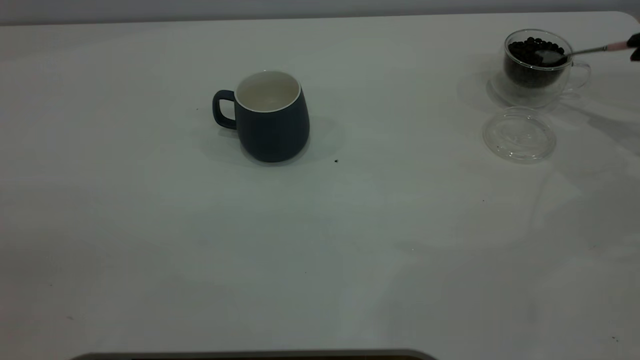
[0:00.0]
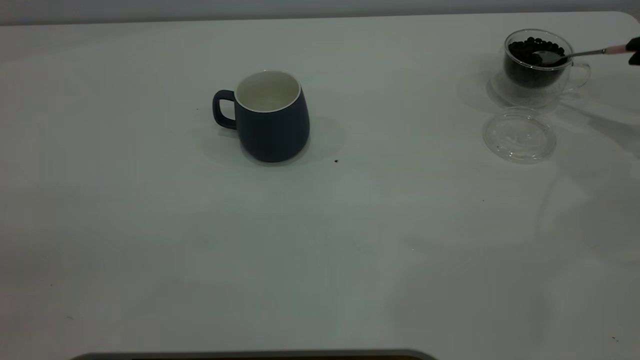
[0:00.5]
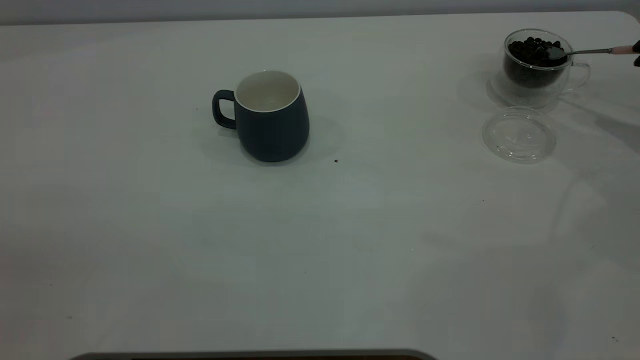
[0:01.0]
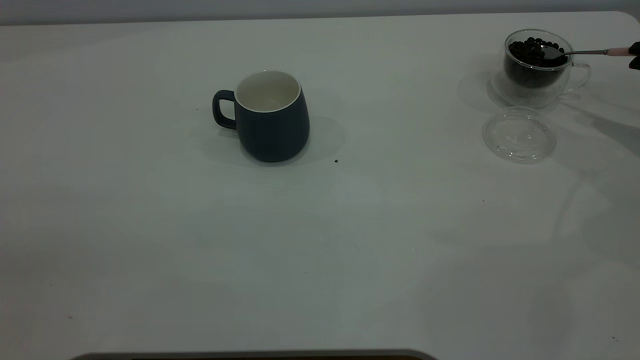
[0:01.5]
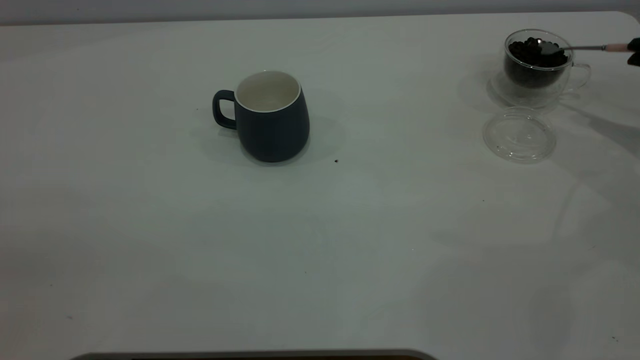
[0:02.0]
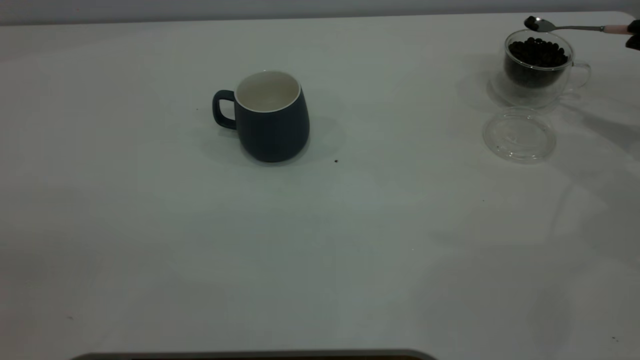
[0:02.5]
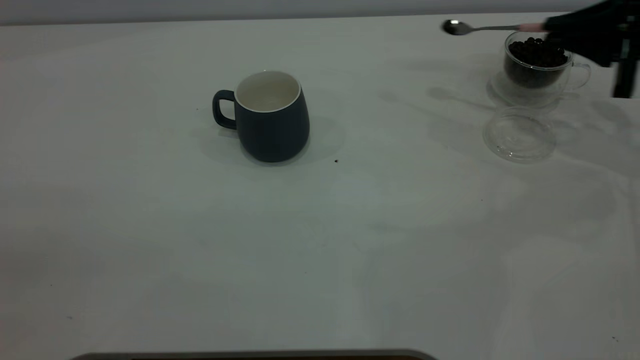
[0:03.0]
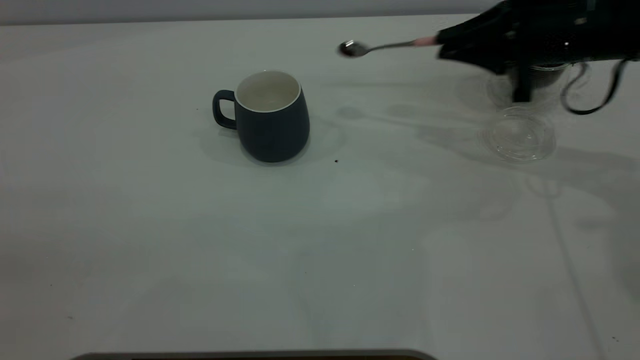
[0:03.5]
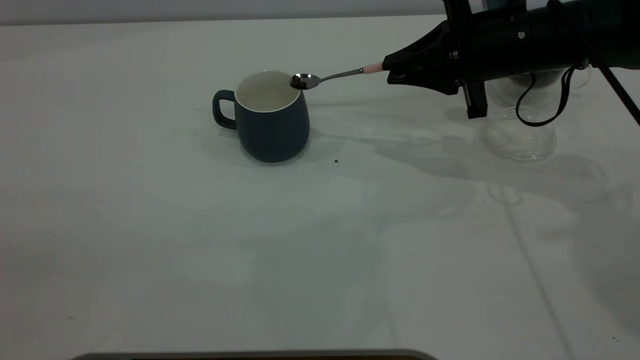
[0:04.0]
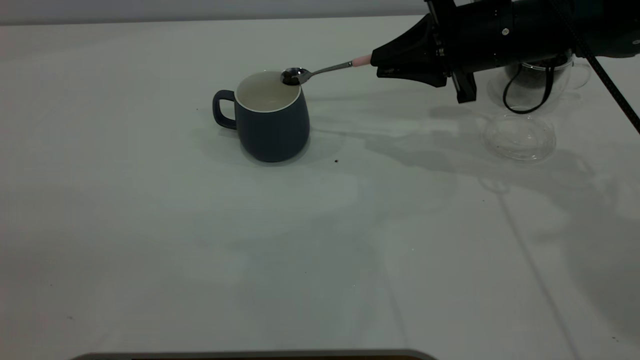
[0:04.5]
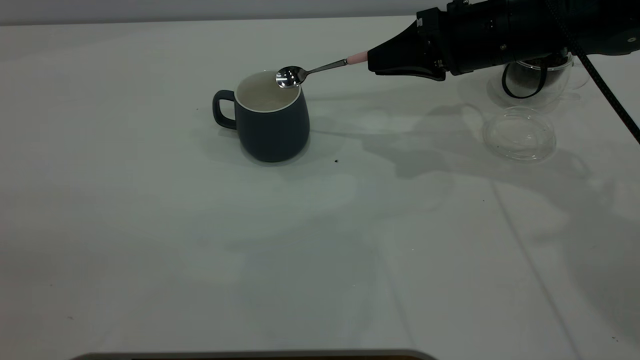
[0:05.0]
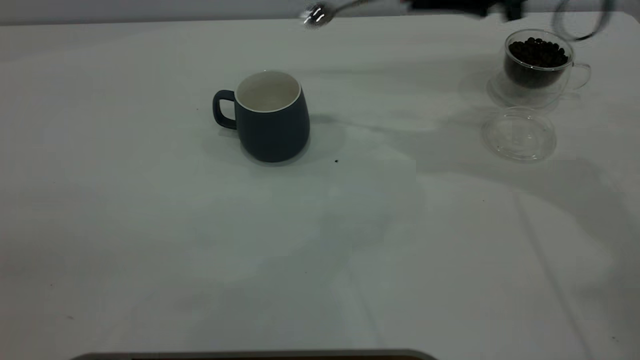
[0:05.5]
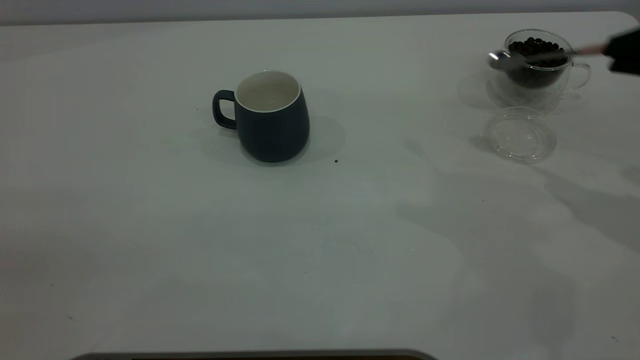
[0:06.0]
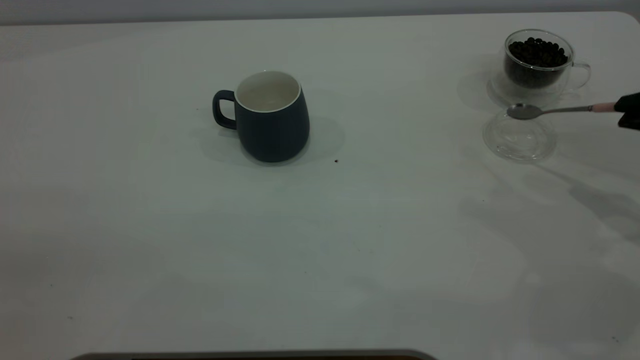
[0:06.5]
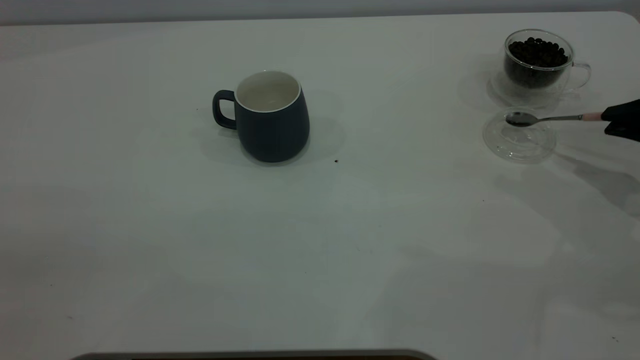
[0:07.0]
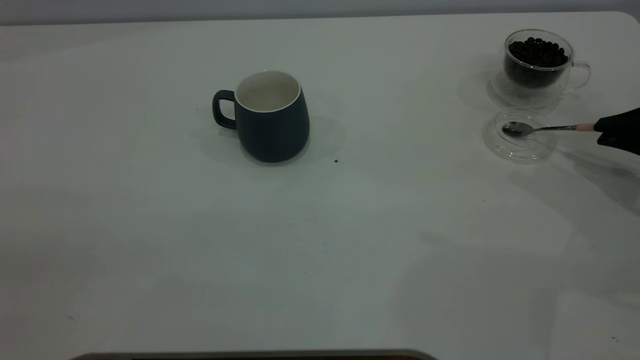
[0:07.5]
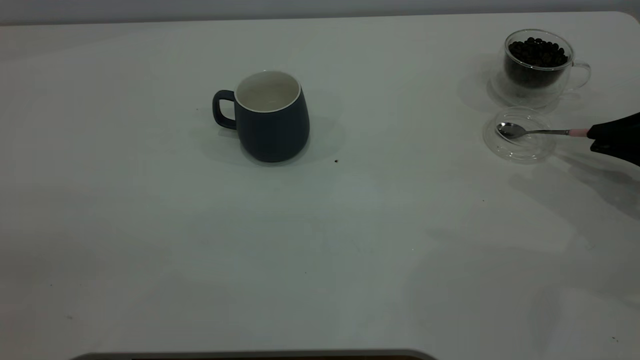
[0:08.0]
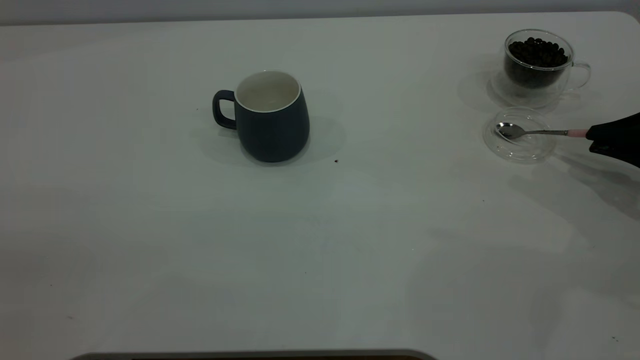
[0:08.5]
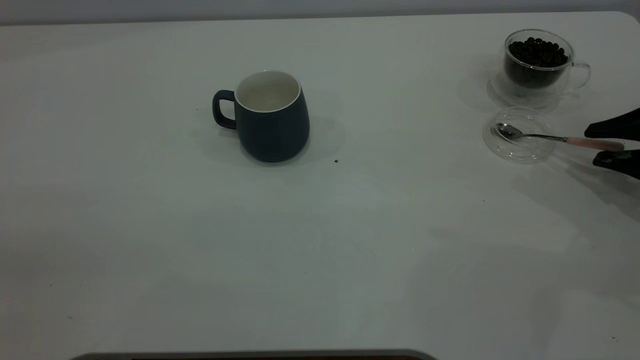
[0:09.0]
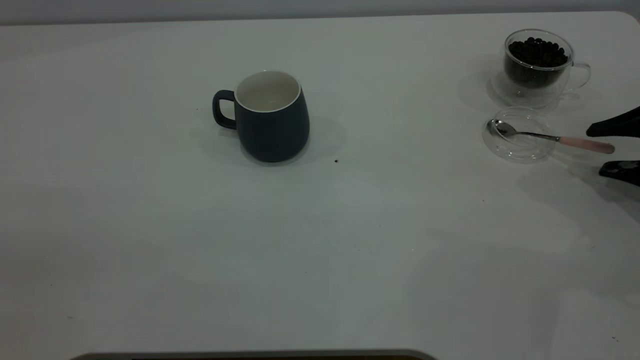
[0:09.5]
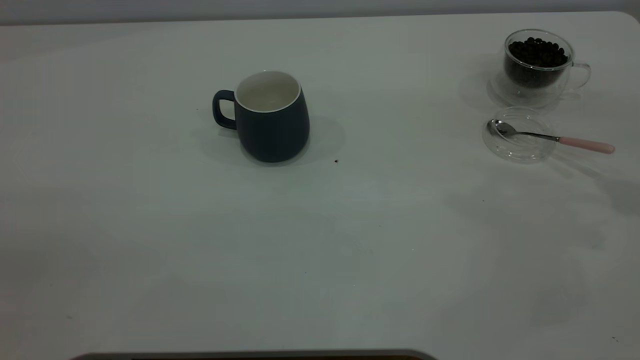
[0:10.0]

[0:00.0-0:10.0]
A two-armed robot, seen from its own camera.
Task of the whole recording: the left gripper place the grey cup in the center of the table, the right gripper take the pink spoon from the cup lid and scoop out the coffee beans from the coffee cup and put them into the grey cup, the right gripper put the spoon back into the cup lid.
Step, 0:00.0 to 0:05.0: Scoop a spoonful of beans into the cup.
Step, 0:05.5 to 0:09.5: Place the spoon back in its original place.
0:02.0 to 0:04.0: The right gripper is displaced to the left by roughly 25 cm.
0:04.0 to 0:06.0: The right gripper heads to the right, backward and upward, covering approximately 20 cm.
0:06.0 to 0:08.0: The right gripper shifts approximately 15 cm downward.
0:08.0 to 0:10.0: The right gripper goes approximately 15 cm upward, and opens.
